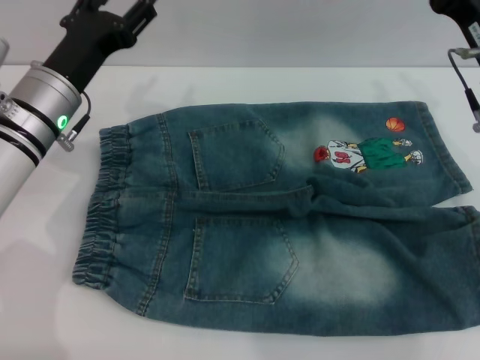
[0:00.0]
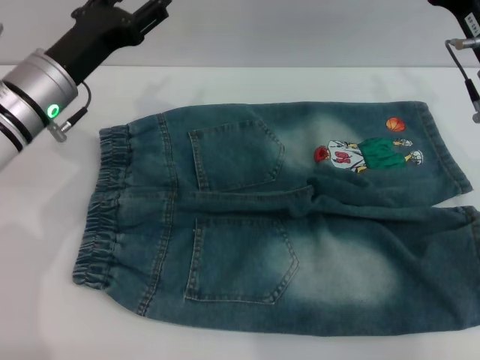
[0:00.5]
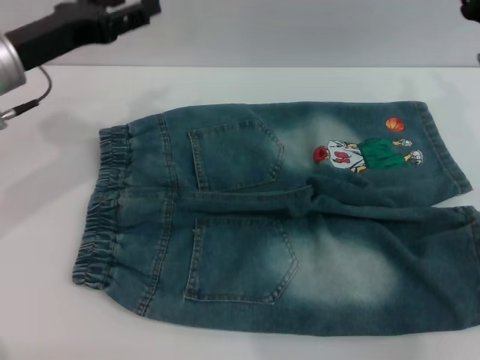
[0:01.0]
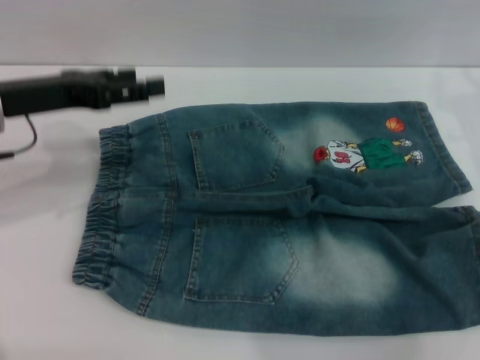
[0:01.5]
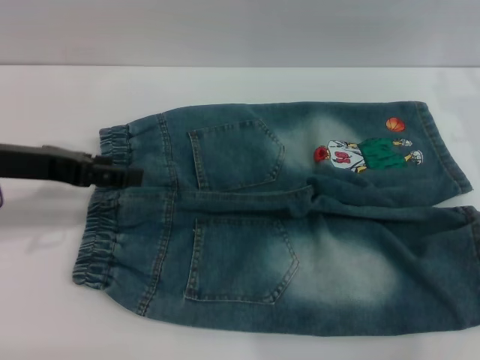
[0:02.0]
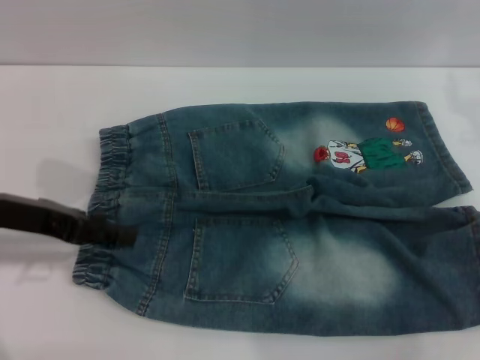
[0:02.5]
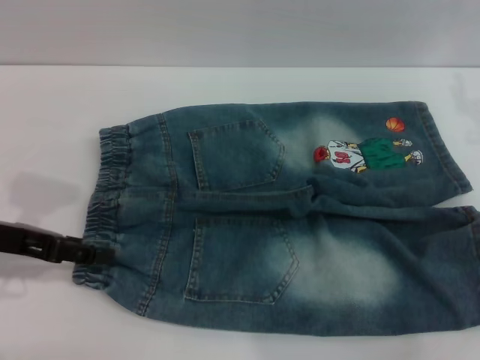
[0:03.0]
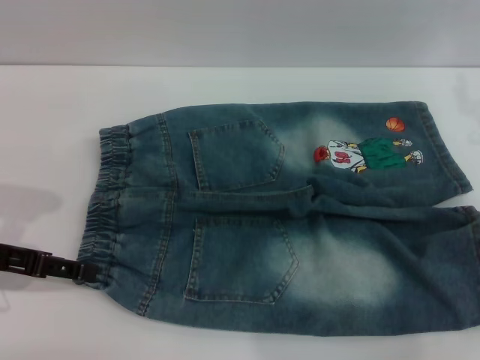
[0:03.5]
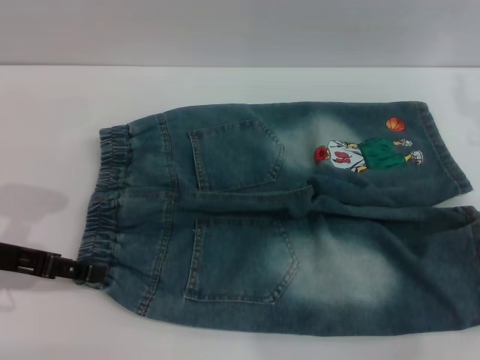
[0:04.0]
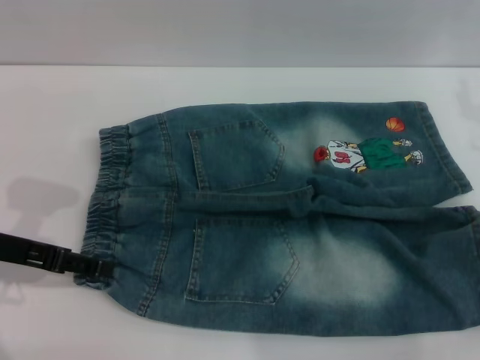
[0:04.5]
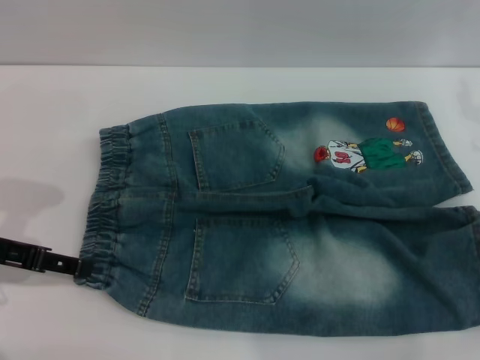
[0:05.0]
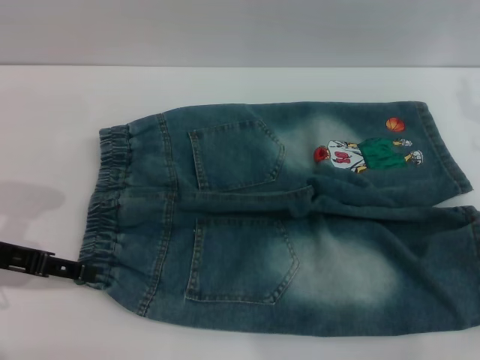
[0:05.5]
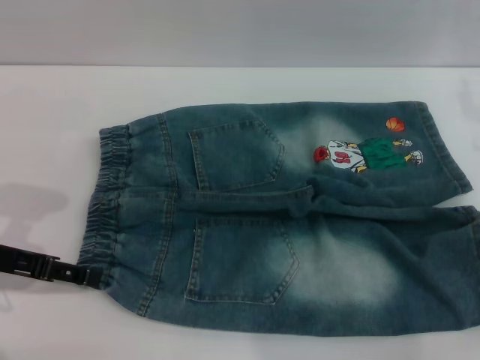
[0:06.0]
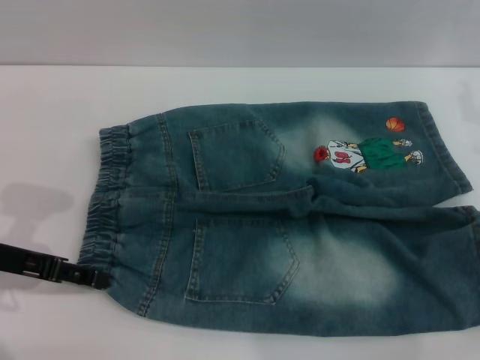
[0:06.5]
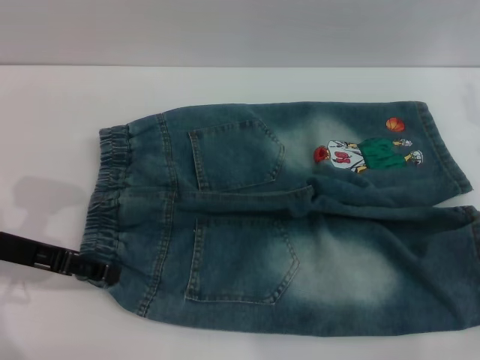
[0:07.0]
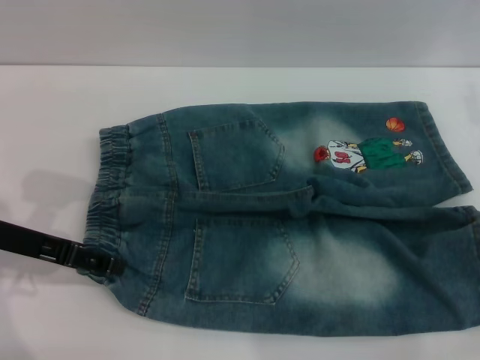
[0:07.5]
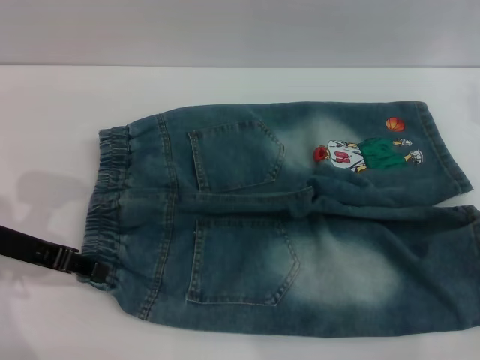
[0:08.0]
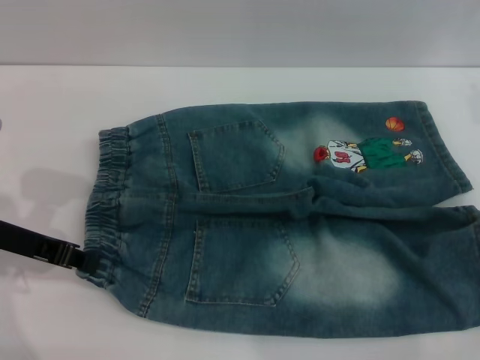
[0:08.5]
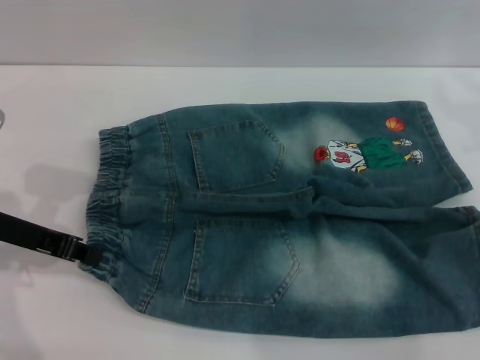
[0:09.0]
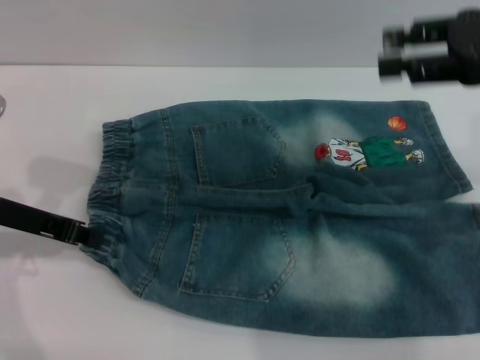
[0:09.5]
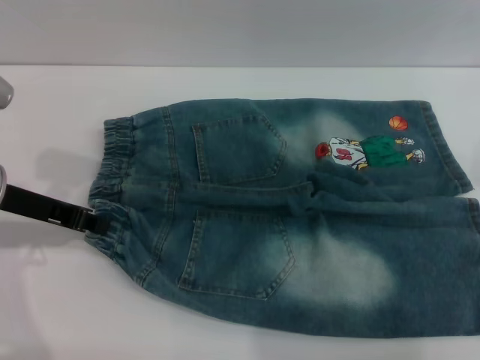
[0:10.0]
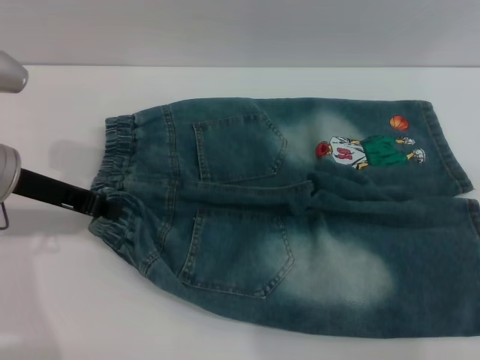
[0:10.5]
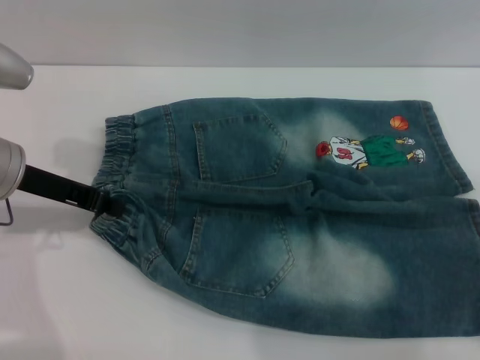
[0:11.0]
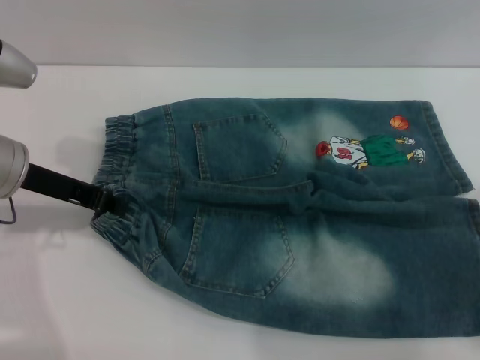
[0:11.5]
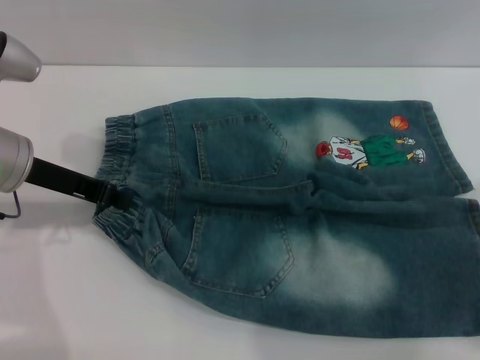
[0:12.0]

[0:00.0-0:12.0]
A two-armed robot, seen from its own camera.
0:00.0 to 0:02.0: The left gripper moves to the left, upward and backward, some 10 cm. The right gripper travels to the right by about 5 cm.
0:02.0 to 0:04.0: The left gripper changes place by some 5 cm.
0:04.0 to 0:06.0: Both grippers stay put.
0:06.0 to 0:08.0: The grippers move only a little.
0:08.0 to 0:10.0: The right gripper heads upward, covering some 15 cm. The left gripper closes up.
0:10.0 to 0:12.0: The right gripper shifts about 10 cm downward.

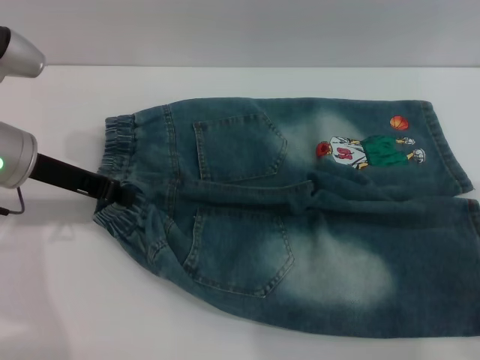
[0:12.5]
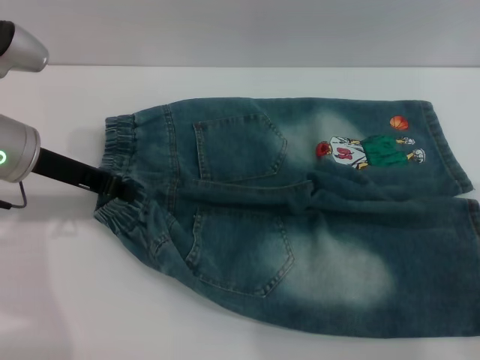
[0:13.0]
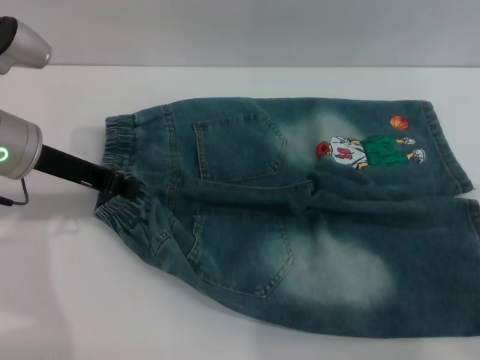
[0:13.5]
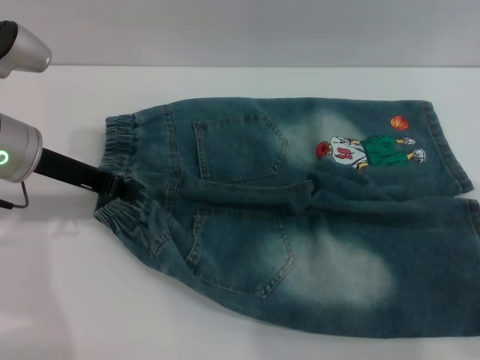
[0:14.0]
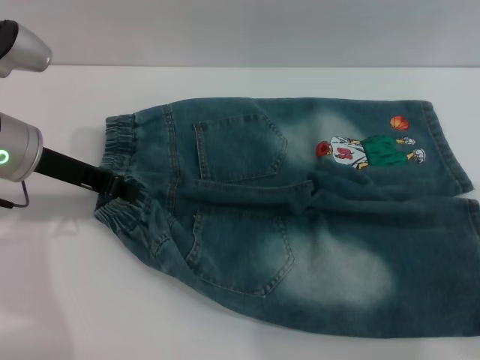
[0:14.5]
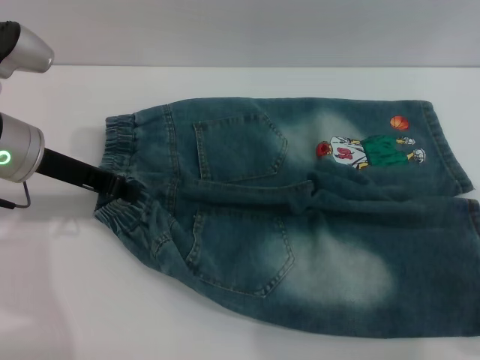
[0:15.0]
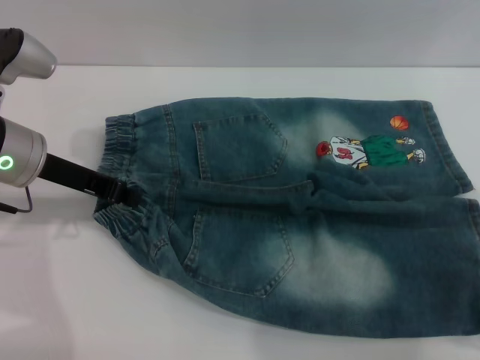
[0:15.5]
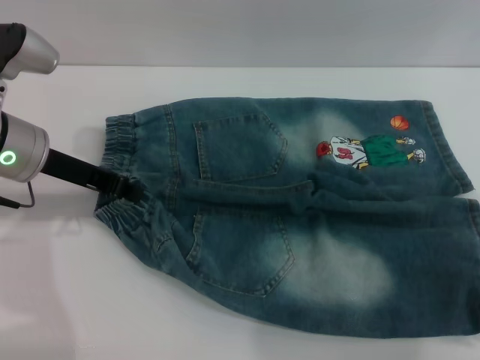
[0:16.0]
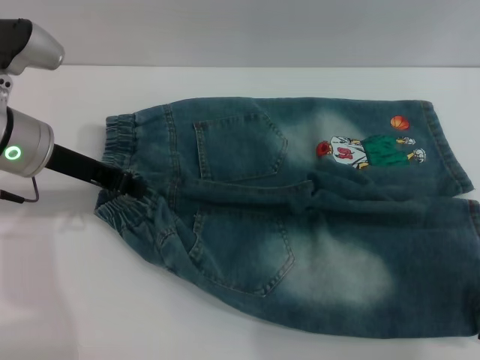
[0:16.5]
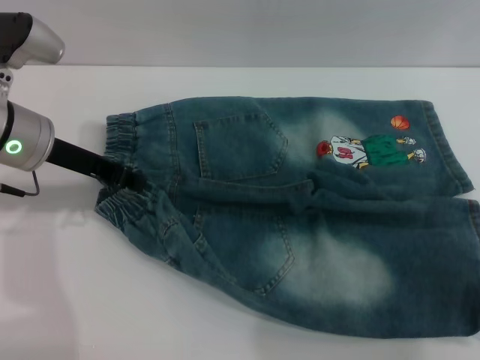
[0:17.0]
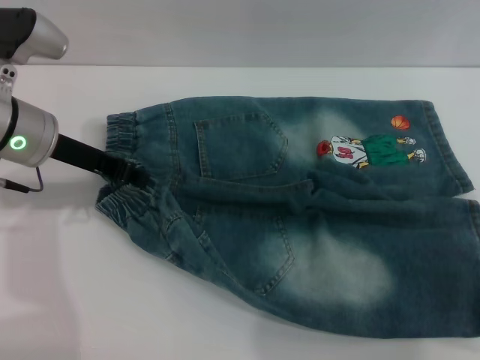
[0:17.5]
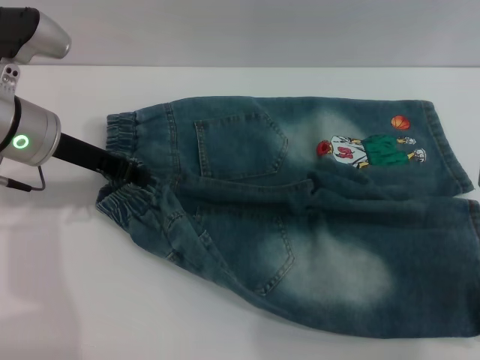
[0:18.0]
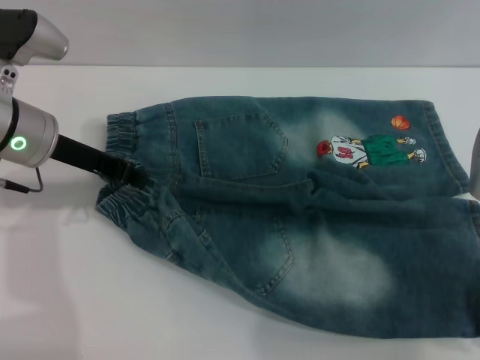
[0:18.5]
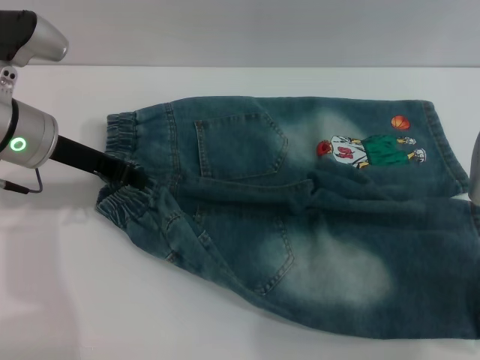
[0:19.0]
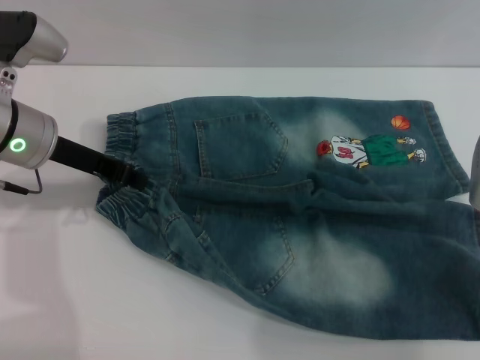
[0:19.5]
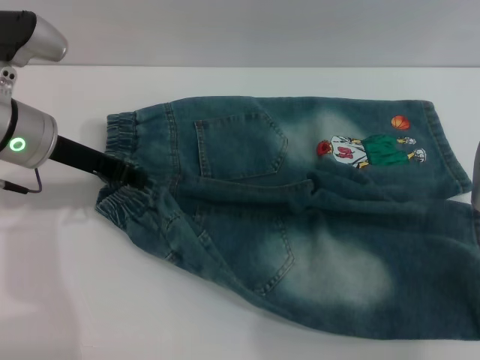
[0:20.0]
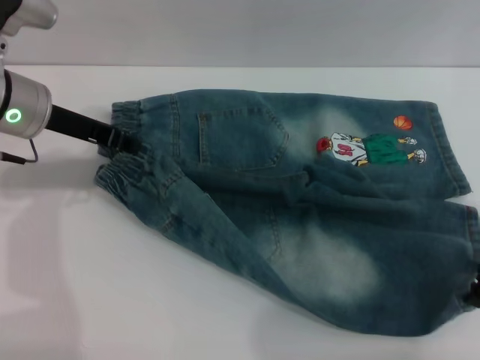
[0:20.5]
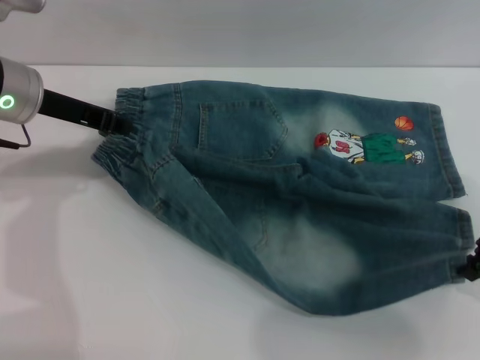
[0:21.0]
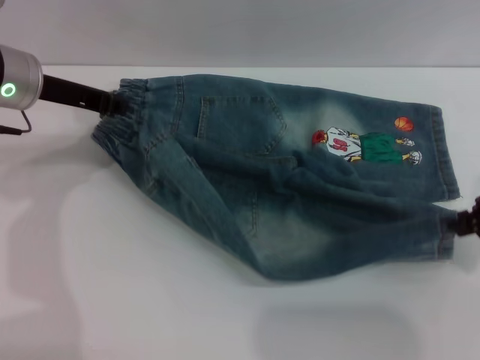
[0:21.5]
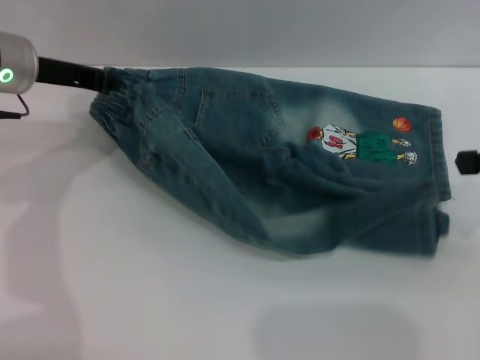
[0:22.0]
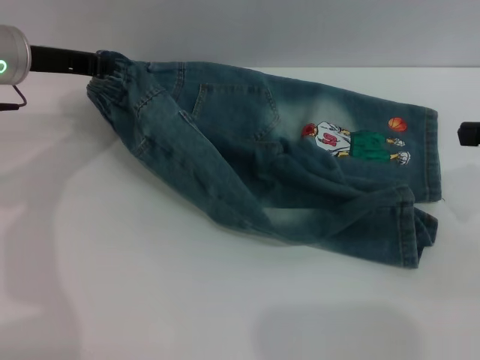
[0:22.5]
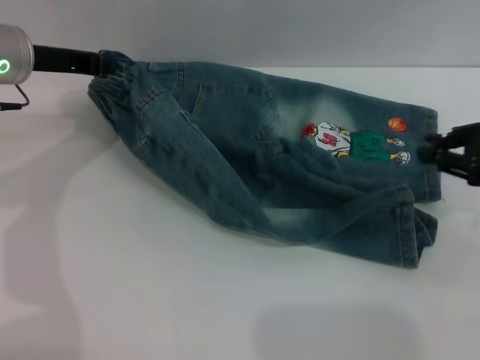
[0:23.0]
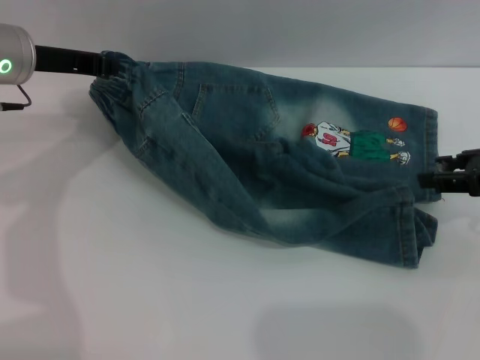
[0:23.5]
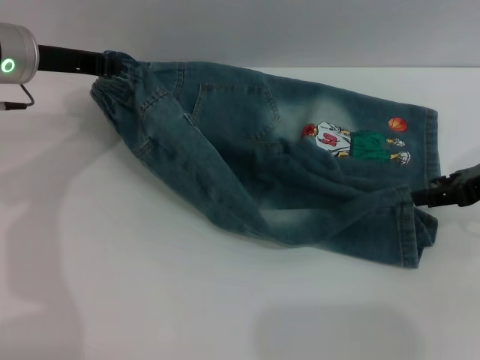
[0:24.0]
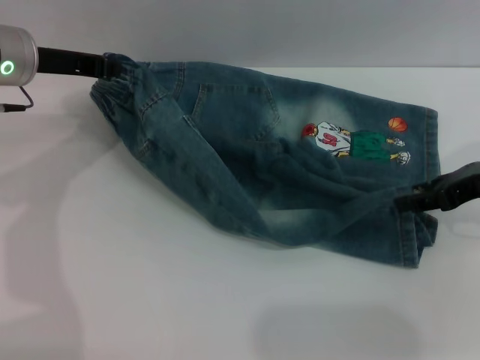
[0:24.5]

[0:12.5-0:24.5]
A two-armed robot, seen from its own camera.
0:12.5 to 0:14.5: Neither gripper changes place.
0:14.5 to 0:16.5: The grippers stay close to where they were, moving slightly.
0:16.5 to 0:18.5: Both grippers stay put.
0:18.5 to 0:20.5: The right gripper closes up.
0:20.5 to 0:22.5: The right gripper moves to the right, approximately 5 cm.
0:22.5 to 0:24.5: The right gripper is displaced to the left by some 5 cm, and opens its fingers.

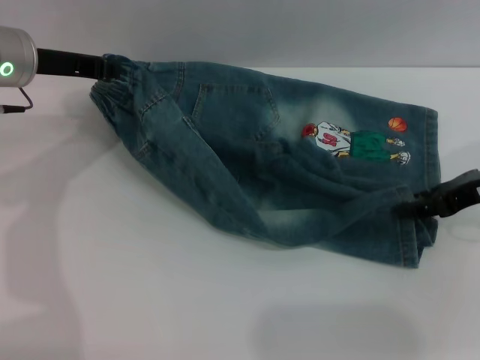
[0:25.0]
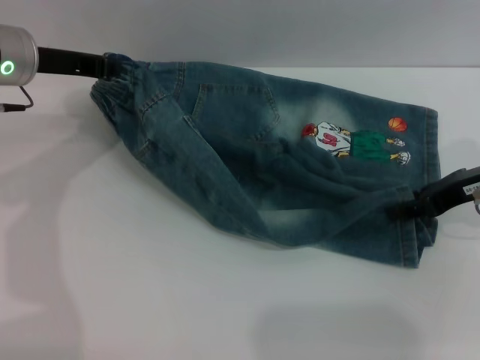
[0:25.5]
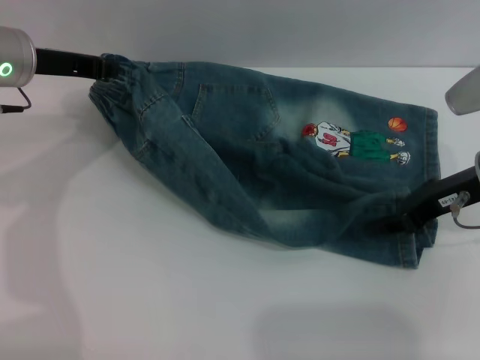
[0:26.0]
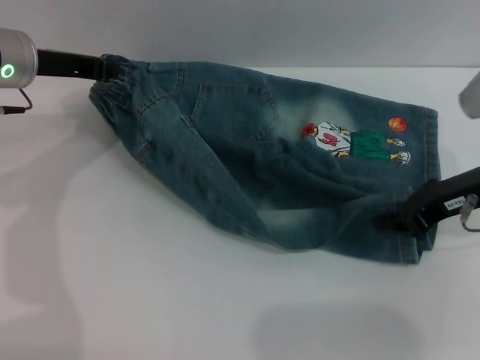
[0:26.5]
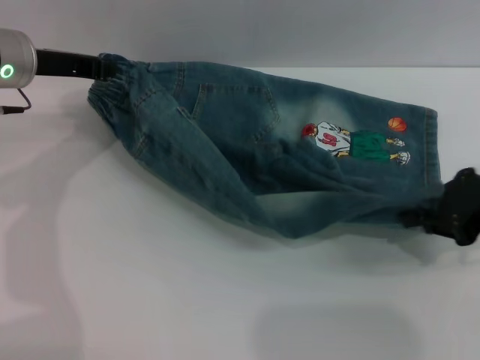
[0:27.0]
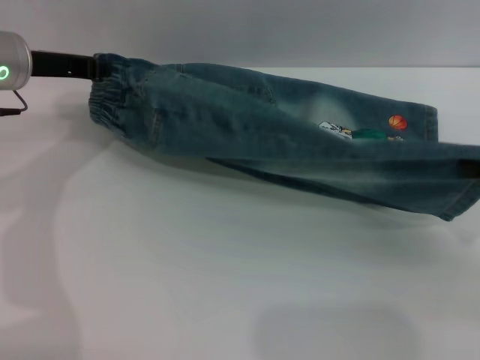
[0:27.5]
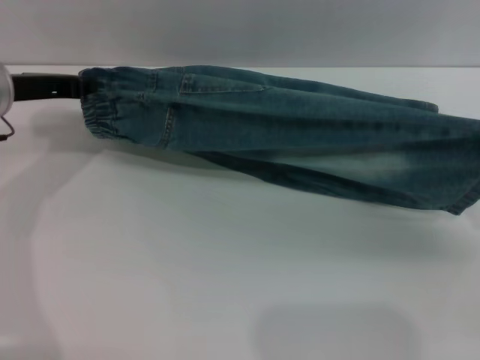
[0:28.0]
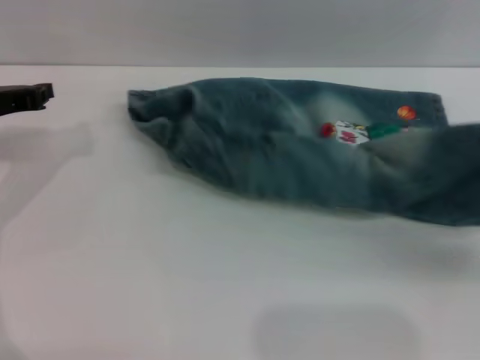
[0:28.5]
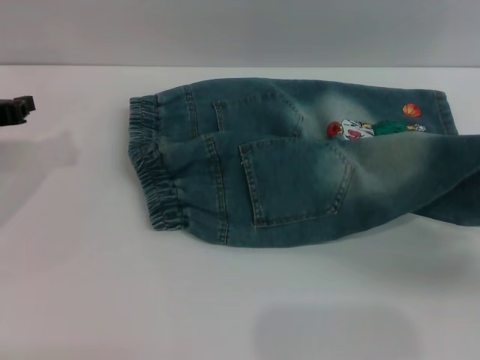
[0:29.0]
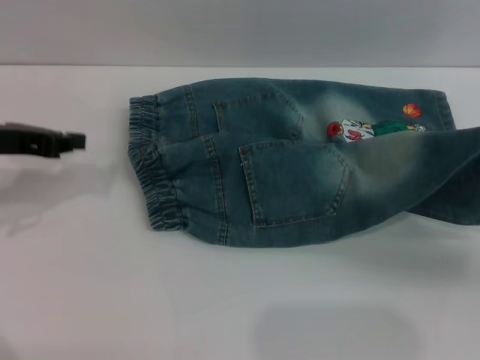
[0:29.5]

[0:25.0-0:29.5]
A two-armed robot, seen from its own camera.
0:25.0 to 0:27.0: The right gripper ends up roughly 5 cm from where it was, and closes up.
0:27.0 to 0:29.5: The right gripper shifts roughly 10 cm to the right. The left gripper is displaced backward and to the left by about 10 cm.
